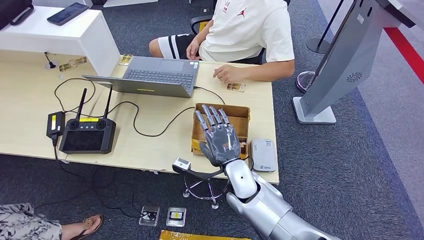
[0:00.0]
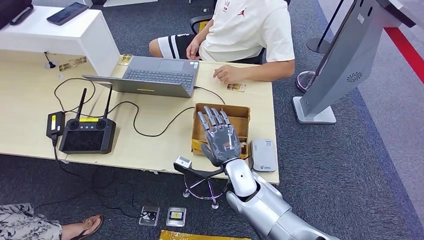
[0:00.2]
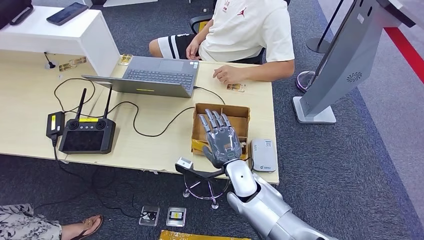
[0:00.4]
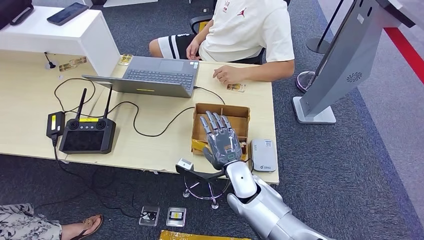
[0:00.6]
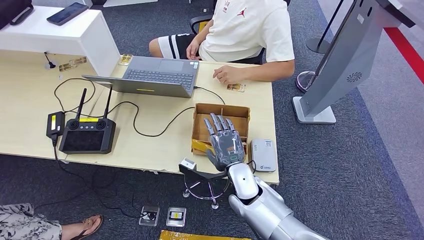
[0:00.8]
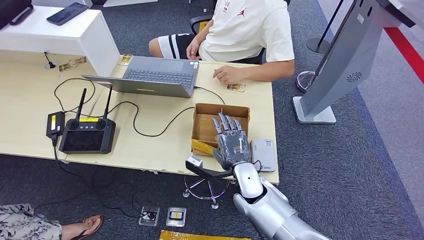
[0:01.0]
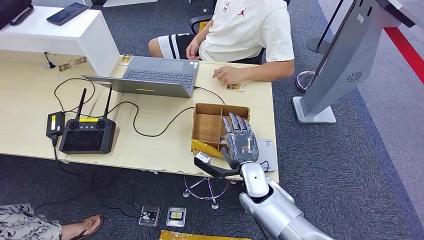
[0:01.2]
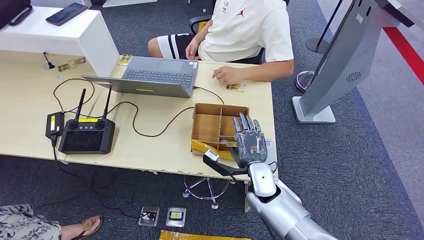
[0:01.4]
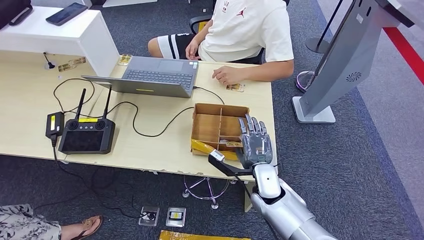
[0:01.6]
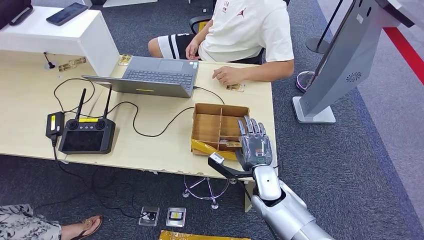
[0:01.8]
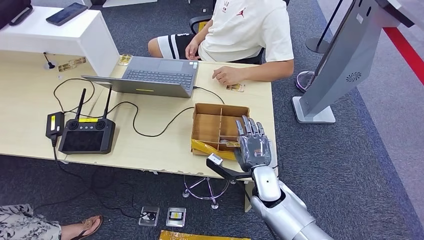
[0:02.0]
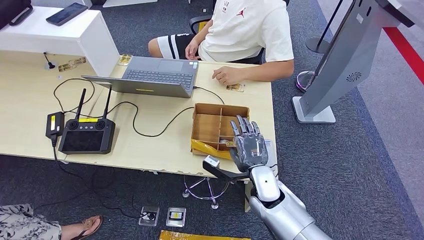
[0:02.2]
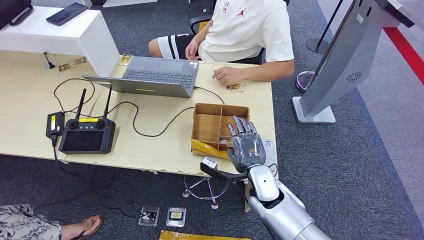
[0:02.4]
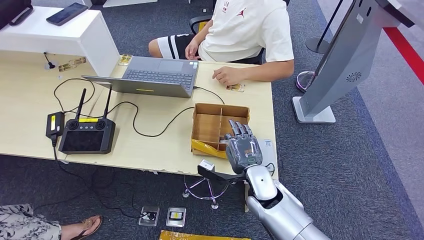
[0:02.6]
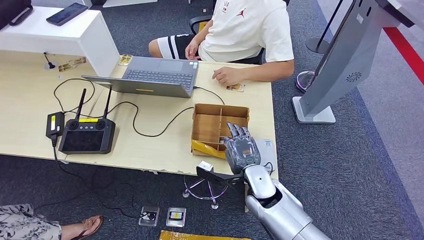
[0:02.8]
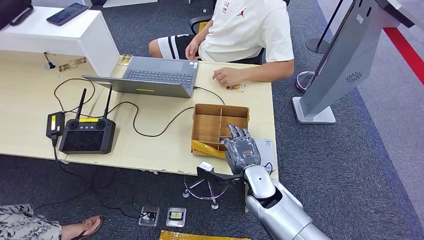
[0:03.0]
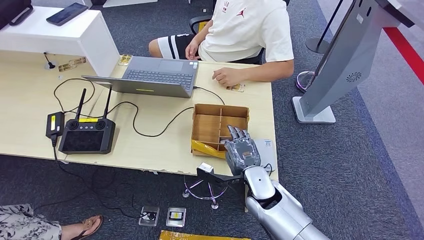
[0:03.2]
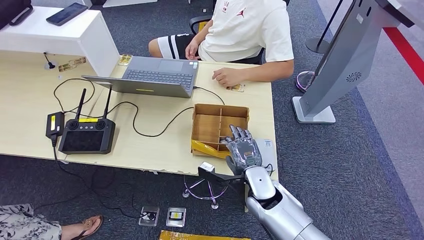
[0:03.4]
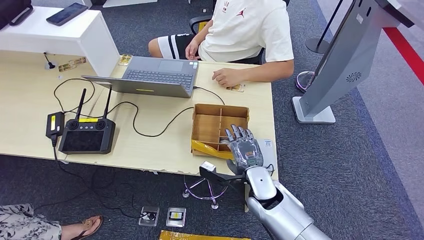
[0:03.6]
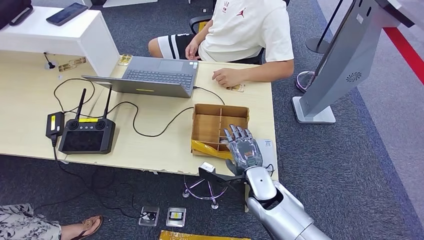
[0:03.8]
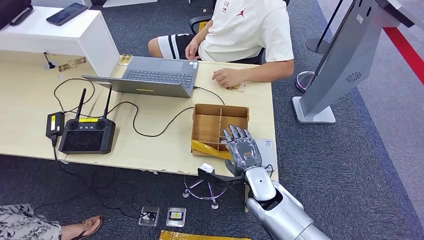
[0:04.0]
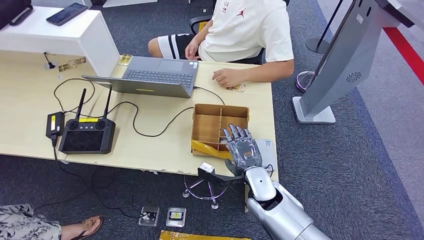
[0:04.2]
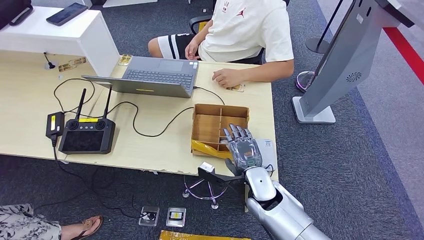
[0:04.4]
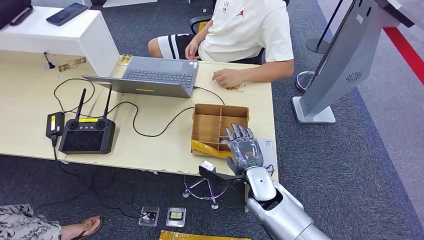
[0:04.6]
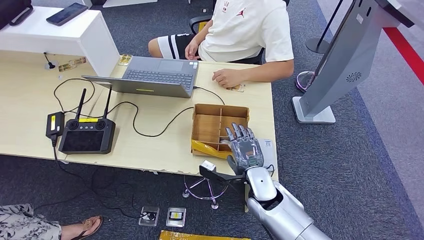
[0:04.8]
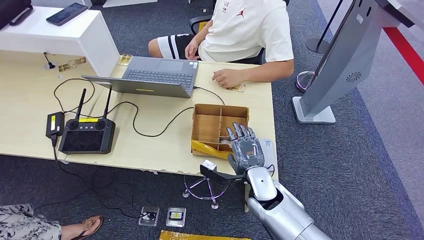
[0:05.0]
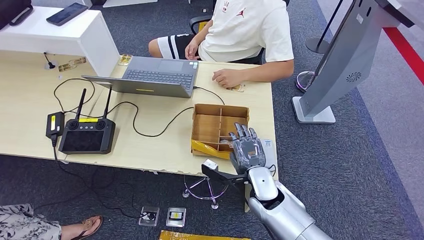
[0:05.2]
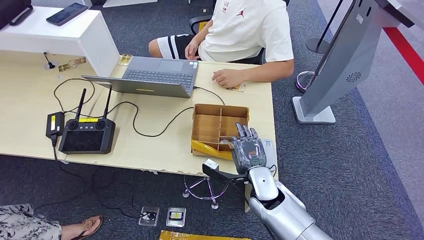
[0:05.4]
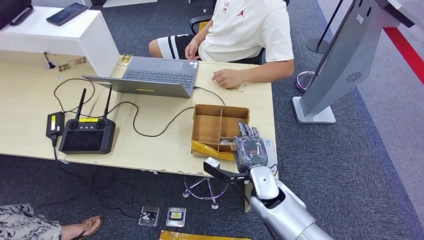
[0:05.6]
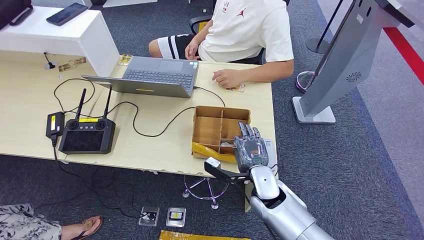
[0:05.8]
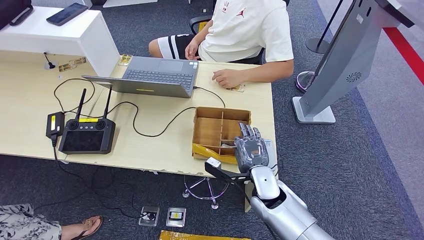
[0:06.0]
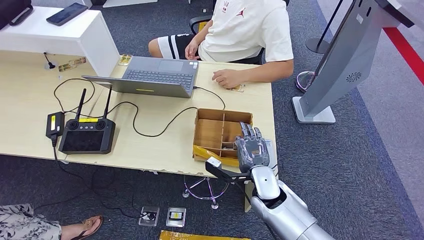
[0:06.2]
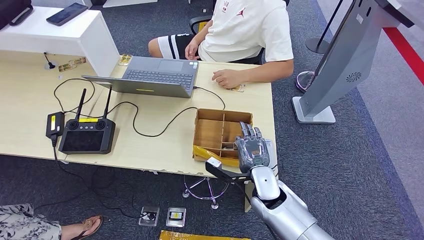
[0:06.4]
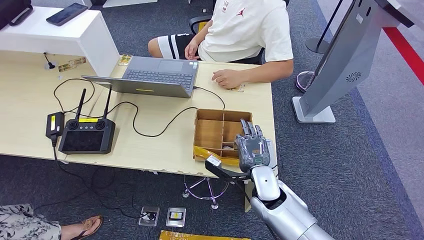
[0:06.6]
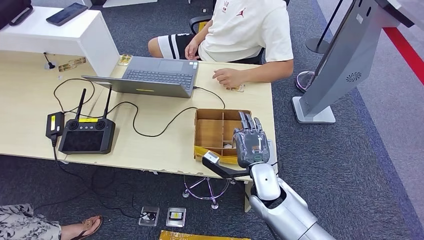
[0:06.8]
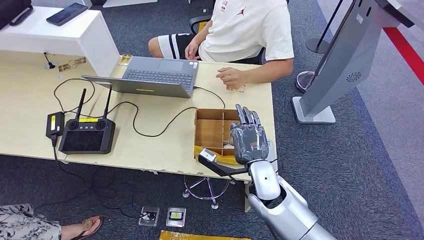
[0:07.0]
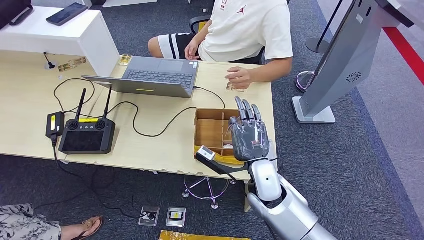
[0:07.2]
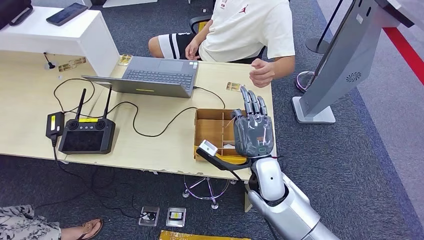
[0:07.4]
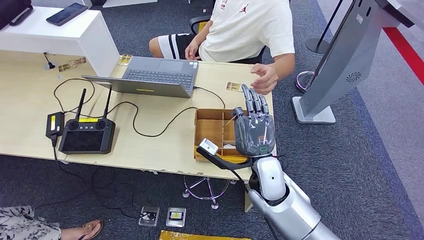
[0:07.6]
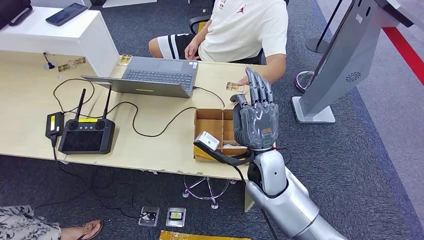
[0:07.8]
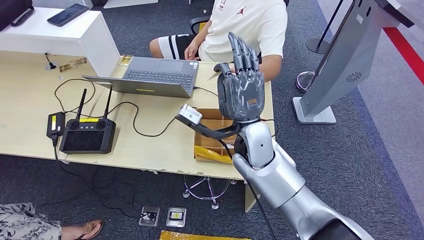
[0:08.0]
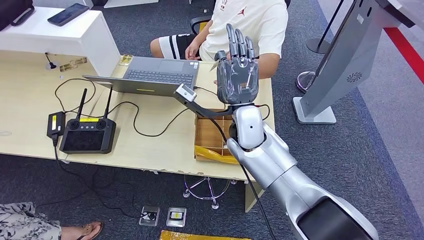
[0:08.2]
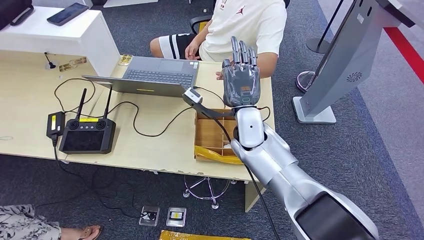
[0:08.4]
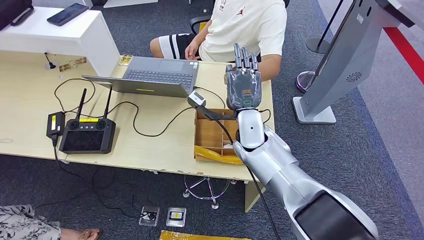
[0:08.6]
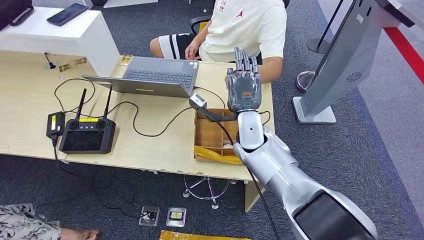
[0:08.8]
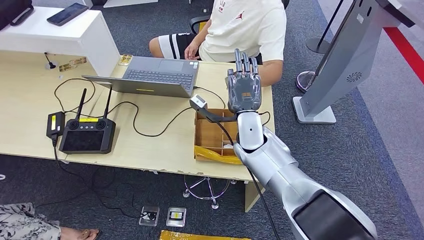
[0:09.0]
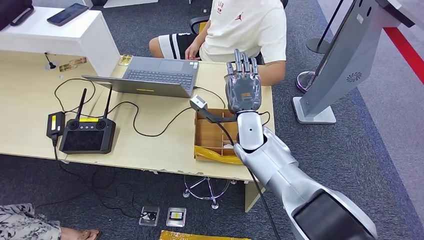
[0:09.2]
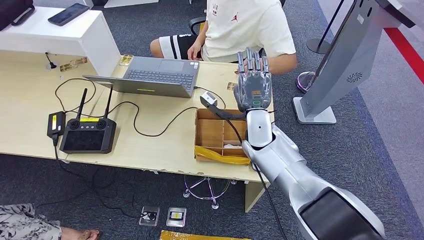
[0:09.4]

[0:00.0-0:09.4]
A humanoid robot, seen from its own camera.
Step, 0:00.0 to 0:05.8: Pick up the room key from the key card box.
Step, 0:06.0 to 0:09.2: Hand the room key to the person.
0:00.0 to 0:01.6: The right hand heads to the right, covering roughly 5 cm.
0:01.6 to 0:03.2: The hands move only a little.
0:03.2 to 0:04.8: Both hands stay about where they are.
0:04.8 to 0:06.2: The two hands keep their place.
0:06.2 to 0:07.8: The right hand shifts approximately 10 cm upward.
0:07.8 to 0:09.4: The right hand moves forward, about 10 cm.
